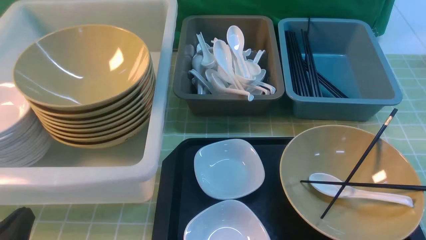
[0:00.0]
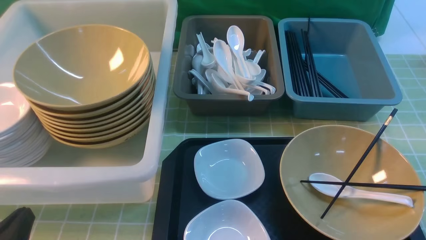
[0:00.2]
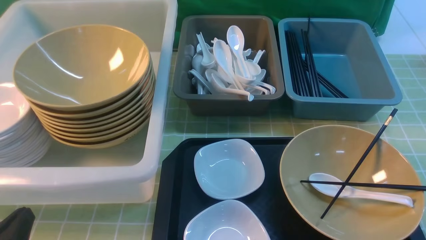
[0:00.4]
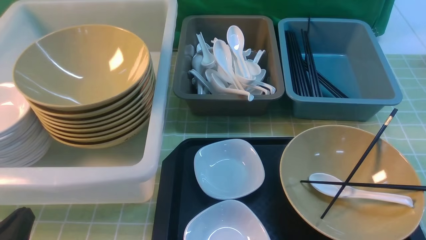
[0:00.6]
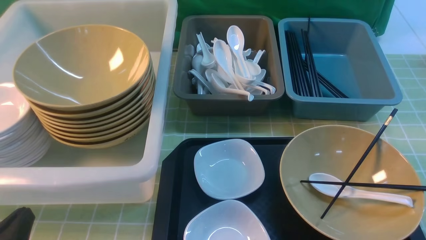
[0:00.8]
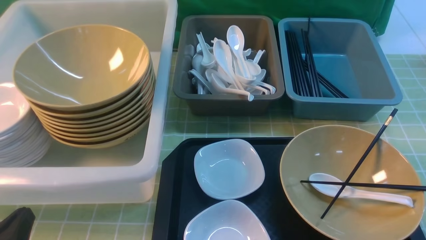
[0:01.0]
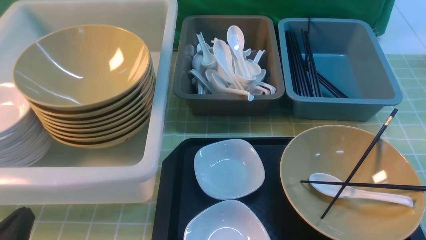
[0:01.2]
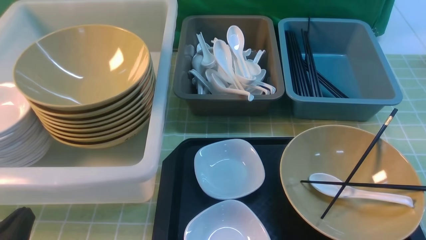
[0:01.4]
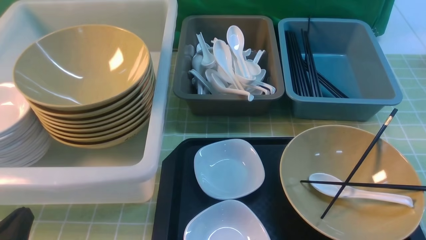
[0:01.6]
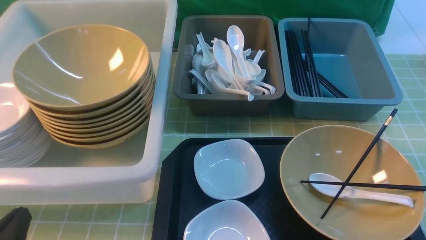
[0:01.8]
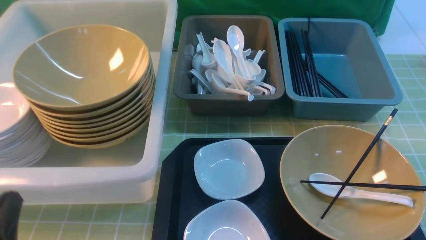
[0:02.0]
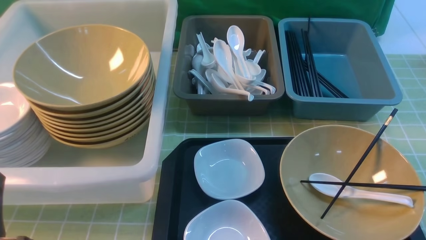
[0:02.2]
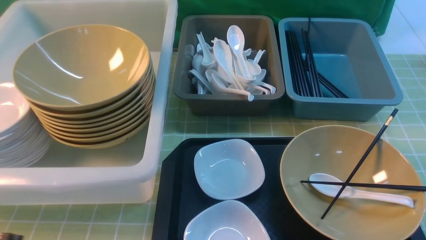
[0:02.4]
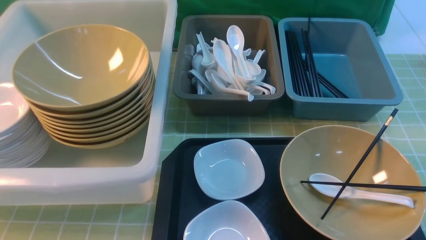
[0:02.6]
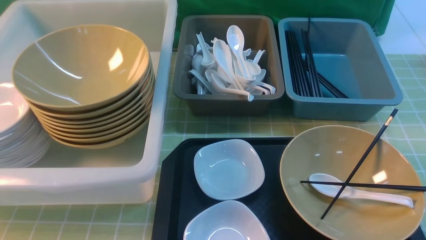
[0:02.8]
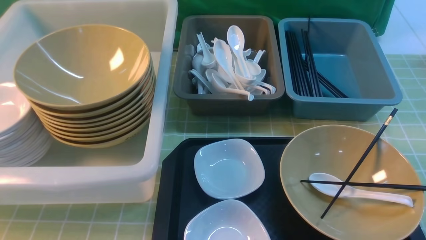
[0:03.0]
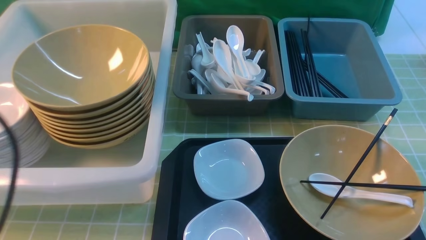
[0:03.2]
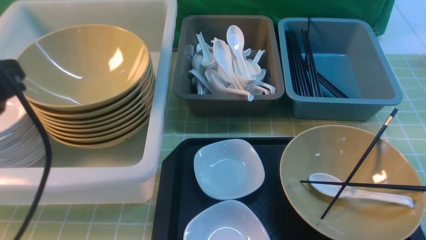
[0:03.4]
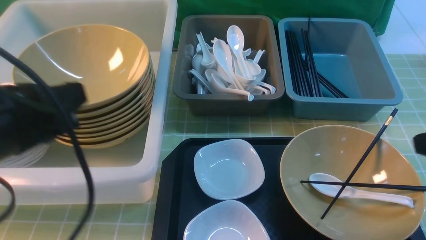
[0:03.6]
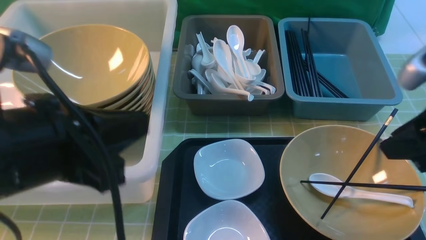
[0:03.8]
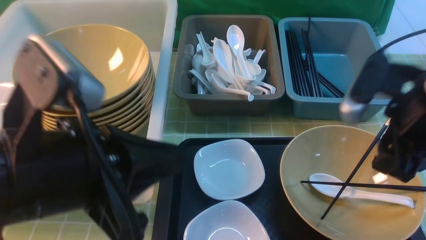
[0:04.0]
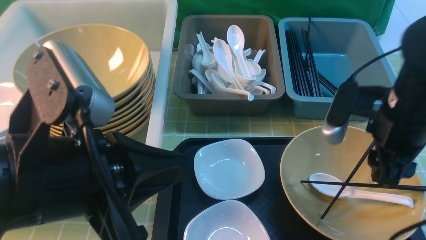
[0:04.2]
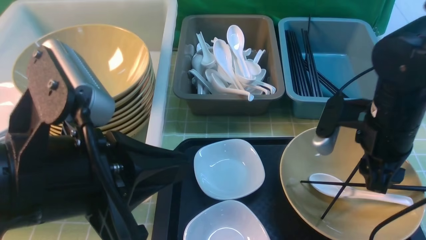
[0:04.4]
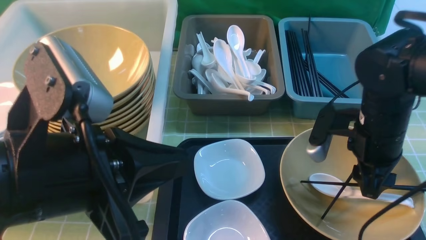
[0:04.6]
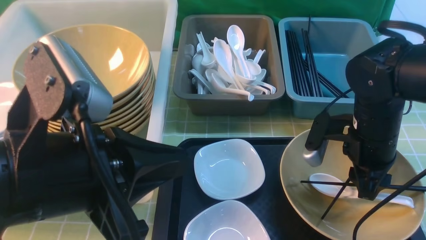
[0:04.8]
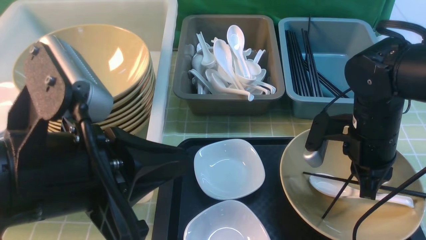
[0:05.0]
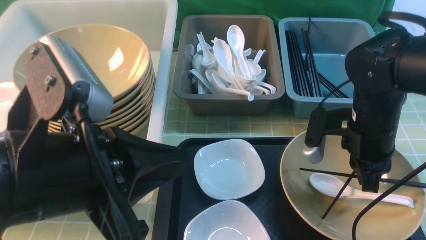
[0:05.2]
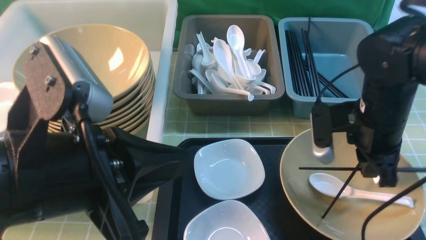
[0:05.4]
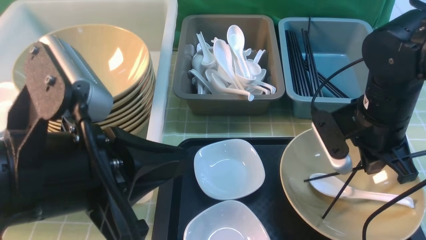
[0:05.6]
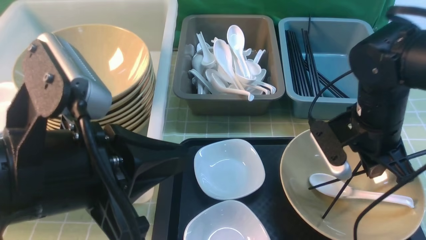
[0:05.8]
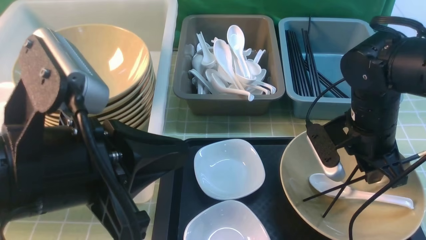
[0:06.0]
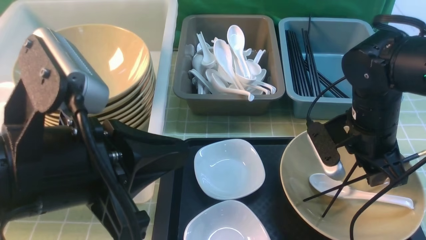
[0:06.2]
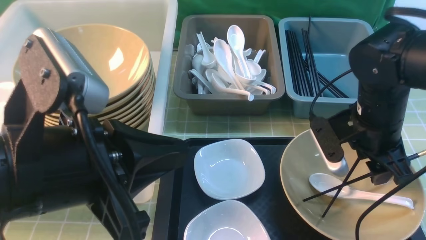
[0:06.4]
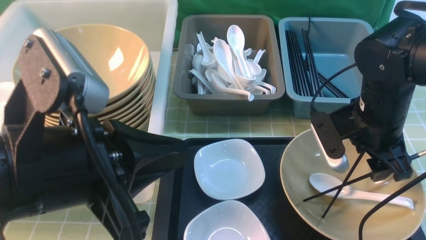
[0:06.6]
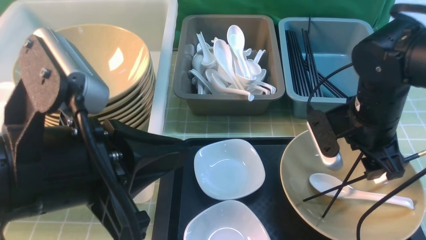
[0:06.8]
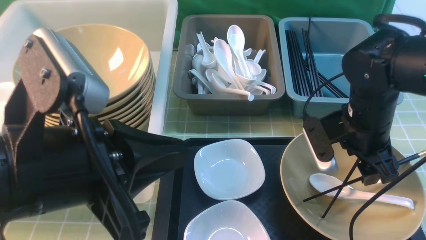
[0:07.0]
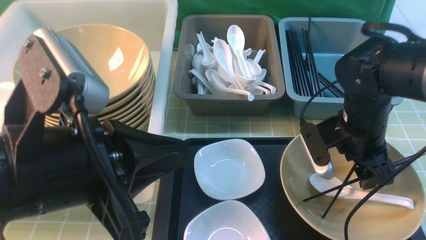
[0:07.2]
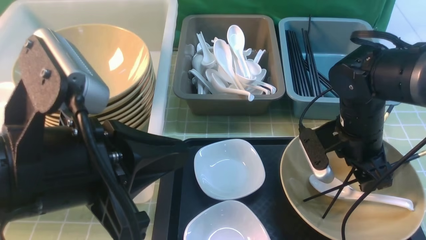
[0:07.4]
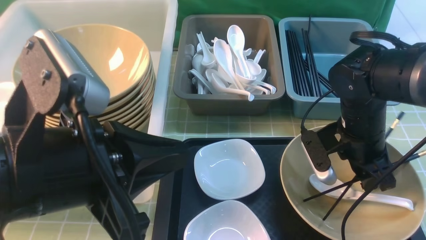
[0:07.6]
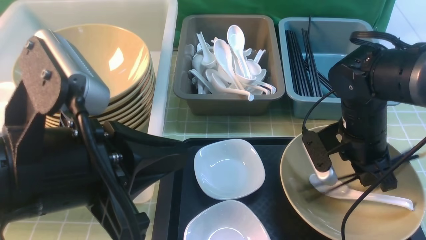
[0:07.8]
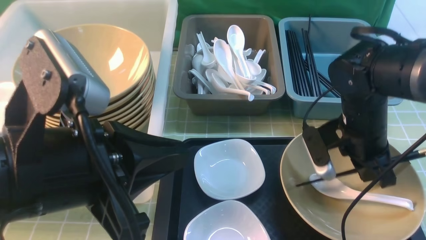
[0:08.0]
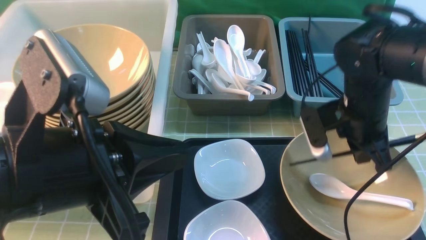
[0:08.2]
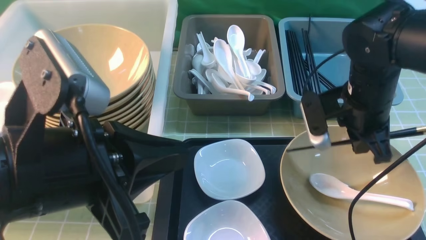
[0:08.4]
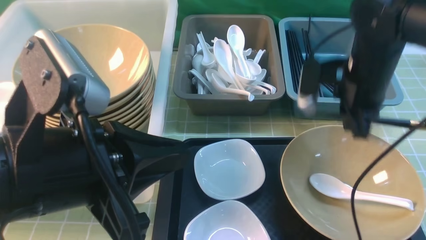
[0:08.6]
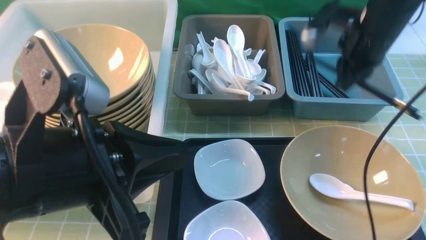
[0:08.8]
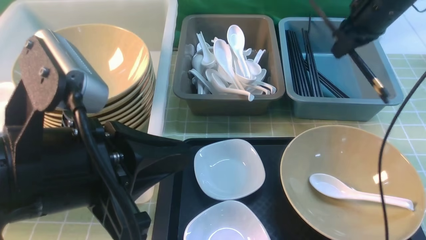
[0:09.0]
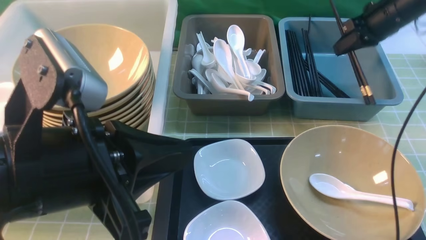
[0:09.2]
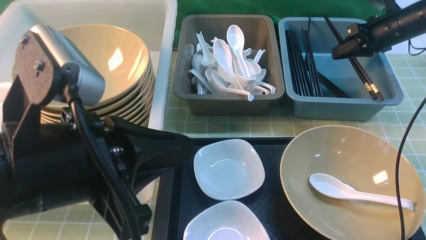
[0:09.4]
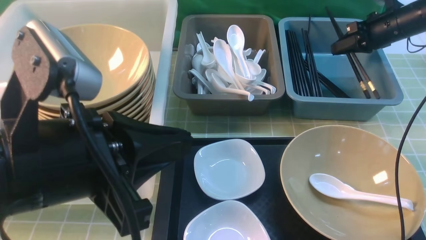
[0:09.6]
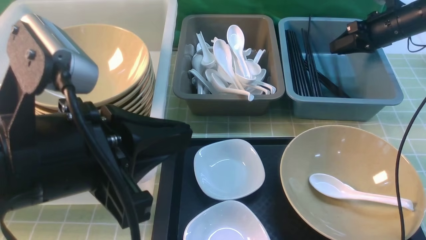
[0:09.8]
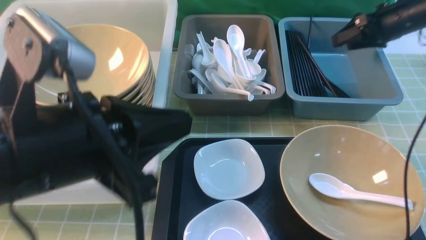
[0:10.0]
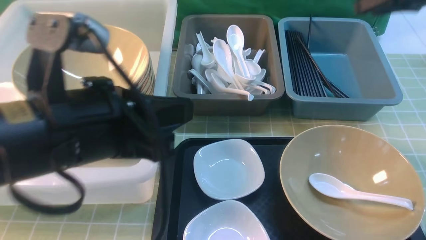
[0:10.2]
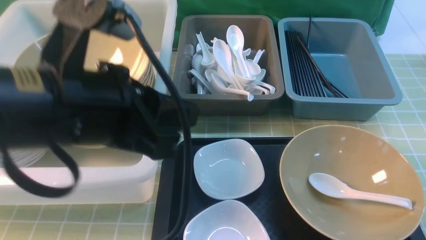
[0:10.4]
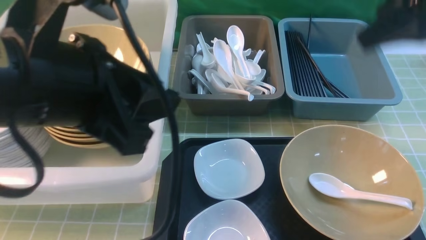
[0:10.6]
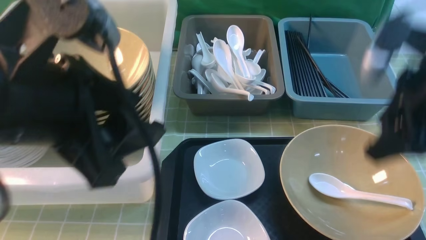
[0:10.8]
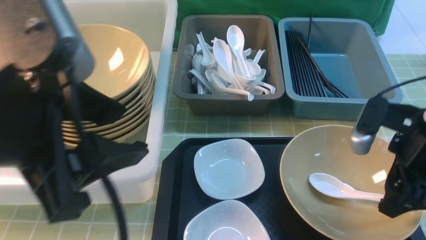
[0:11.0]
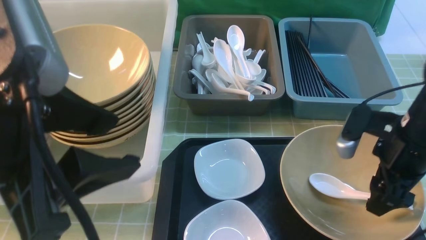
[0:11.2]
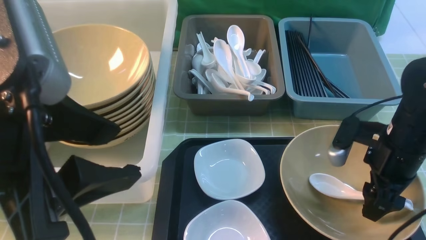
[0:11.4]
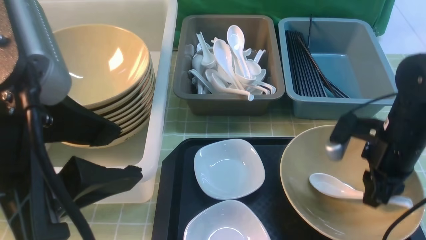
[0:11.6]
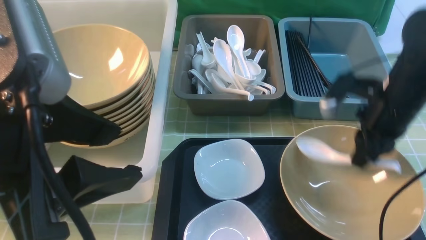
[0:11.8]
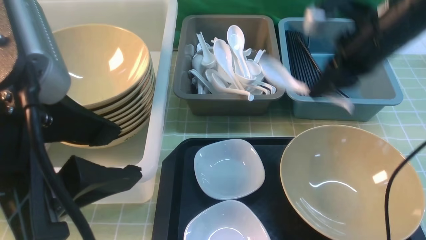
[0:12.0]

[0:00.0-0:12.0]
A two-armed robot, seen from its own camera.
Task of the whole recording: on green table put chopsticks spoon bowls plates into blue grey white boxes.
Step, 0:00.0 to 0:08.4: use the right arm to grab the chopsticks.
Step, 0:08.6 to 0:09.8: use the right arm to put the chopsticks into the small storage box on the right.
Step, 0:10.0 to 0:11.8: use the right arm to grab the soup spoon in the middle.
0:00.0 to 0:01.6: The two grippers keep their place.
0:01.6 to 0:03.0: The left gripper goes some 20 cm upward.
0:03.0 to 0:04.4: The right gripper shifts roughly 25 cm forward, downward and to the left. Meanwhile the left gripper heads to the right, covering about 10 cm.
0:06.0 to 0:07.6: The right gripper opens, then closes once more.
0:07.6 to 0:09.0: The right gripper shifts roughly 20 cm forward, upward and to the right, and closes up.
0:09.0 to 0:10.4: The right gripper travels upward and backward by approximately 15 cm, and opens up.
0:10.4 to 0:12.0: The left gripper ends up some 5 cm from where it was, and opens its fingers; the right gripper travels to the left and downward by approximately 15 cm, and closes its fingers.

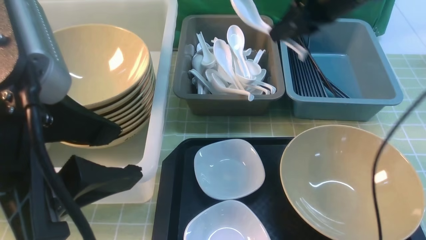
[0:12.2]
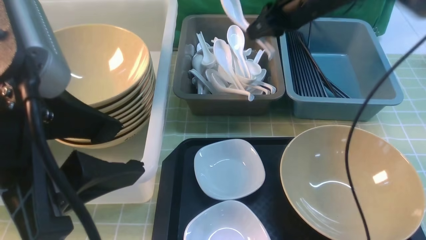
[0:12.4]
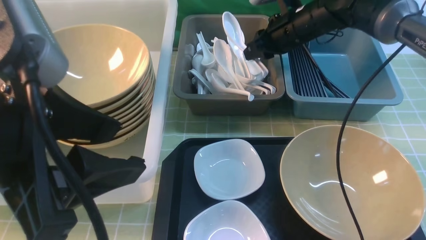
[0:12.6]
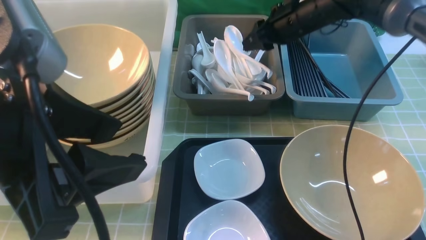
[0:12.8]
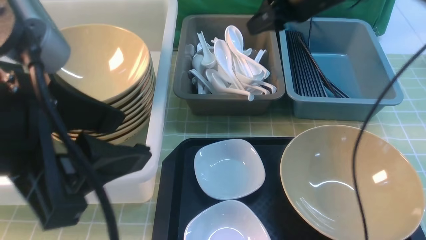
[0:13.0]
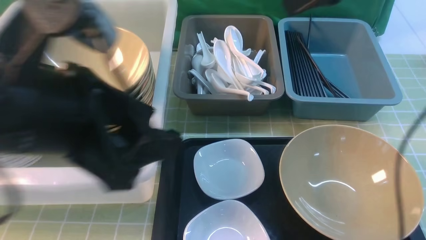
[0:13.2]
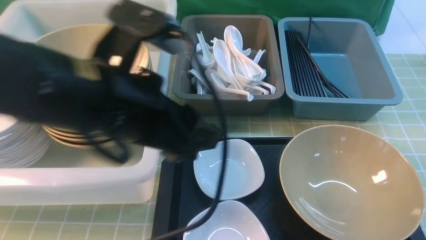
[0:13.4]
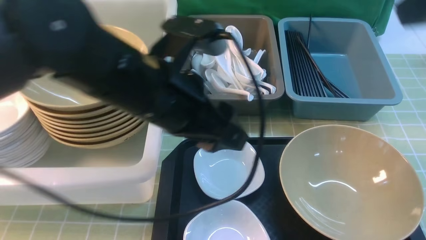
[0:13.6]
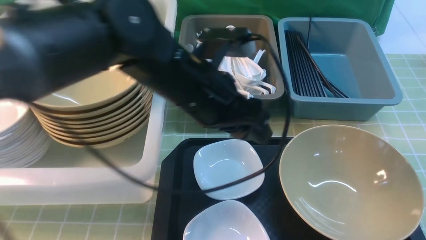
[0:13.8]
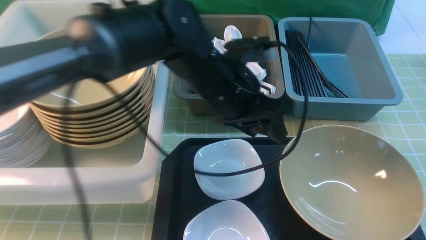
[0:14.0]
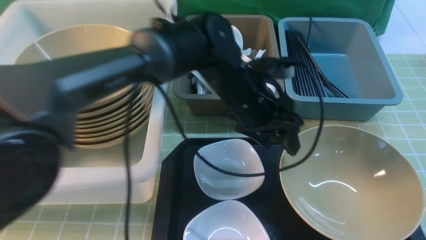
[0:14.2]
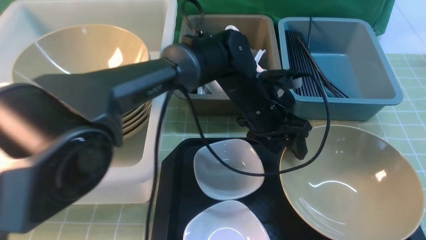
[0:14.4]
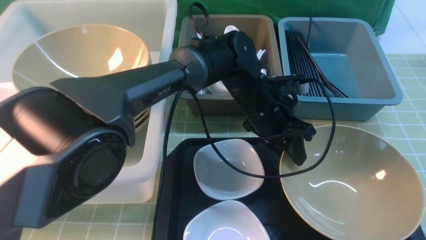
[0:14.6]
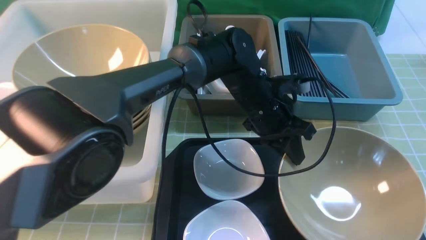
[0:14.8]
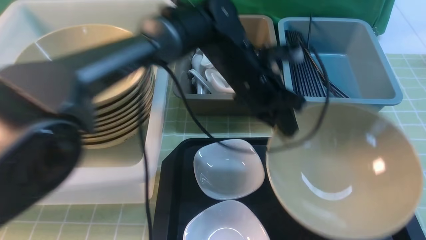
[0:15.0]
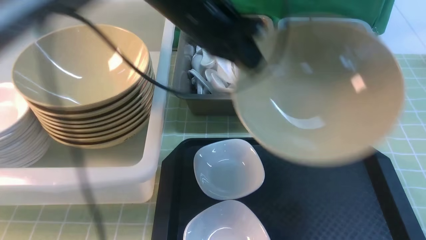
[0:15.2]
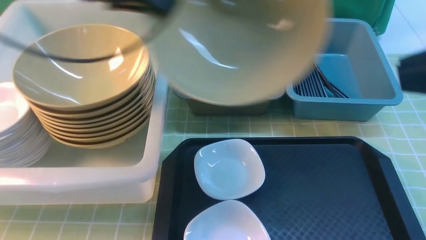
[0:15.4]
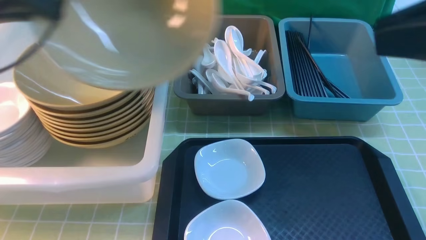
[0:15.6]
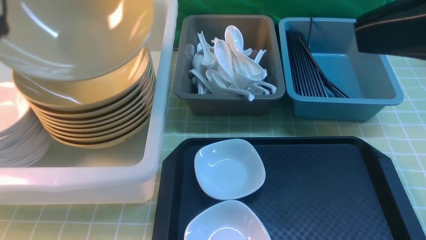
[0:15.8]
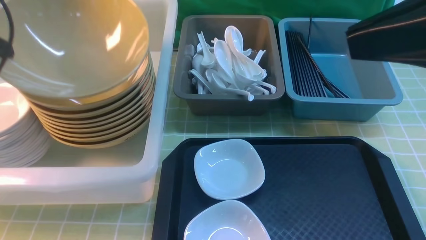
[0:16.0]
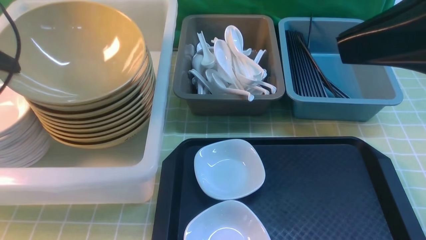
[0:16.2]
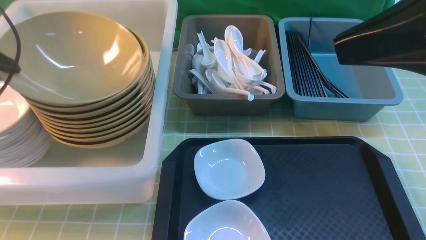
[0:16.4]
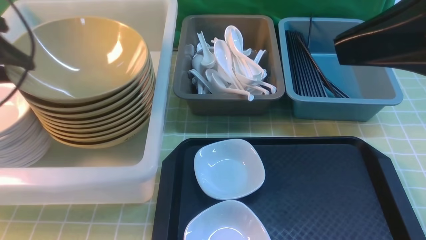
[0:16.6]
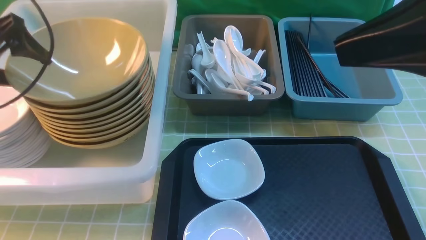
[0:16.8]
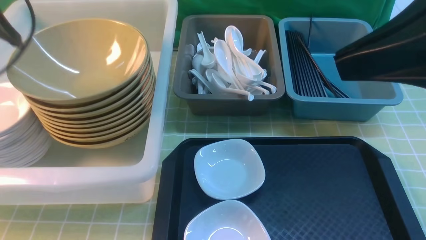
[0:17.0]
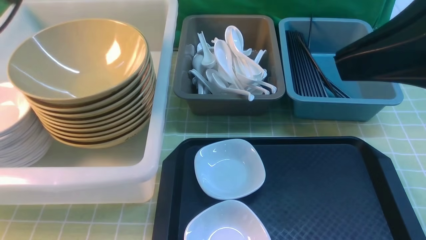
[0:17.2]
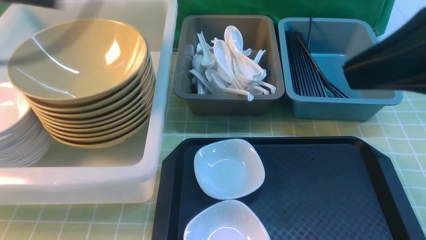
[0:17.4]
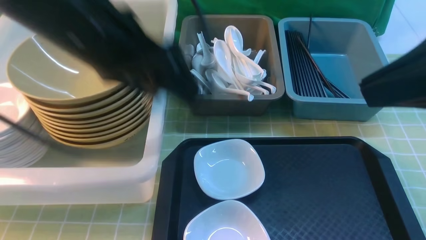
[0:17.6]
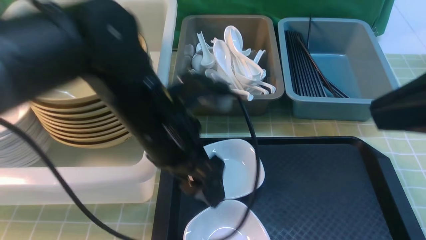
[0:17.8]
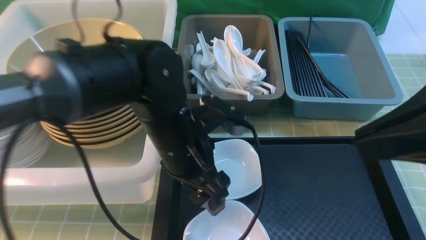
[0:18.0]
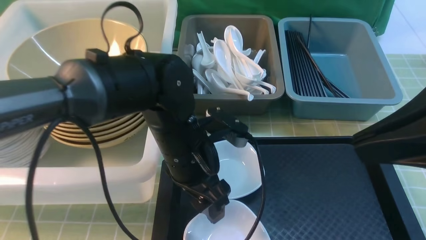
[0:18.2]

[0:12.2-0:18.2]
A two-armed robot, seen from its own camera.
Task of the whole recording: on green table put chopsticks spoon bowls plates into blue grey white boxes.
Step, 0:12.2 to 0:13.0: use the right arm to put the soup spoon into the small storage box in the middle.
Step, 0:13.2 to 0:15.2: use the left arm to grab the yellow noodle bowl on the left.
Step, 0:15.4 to 0:17.2: use the left arm to put the noodle bowl into the large storage box on the left.
0:12.2 to 0:13.8: The left gripper goes approximately 25 cm forward, to the right and downward; the right gripper heads backward, covering roughly 30 cm, and opens, then closes again.
0:13.8 to 0:15.2: The left gripper heads forward, upward and to the left, covering roughly 10 cm, and closes up.
0:15.2 to 0:16.6: The right gripper heads forward, covering about 10 cm, while the left gripper travels to the left by roughly 25 cm, and opens.
0:16.6 to 0:18.2: The right gripper ends up approximately 5 cm from where it was. The left gripper shifts roughly 30 cm to the right.
